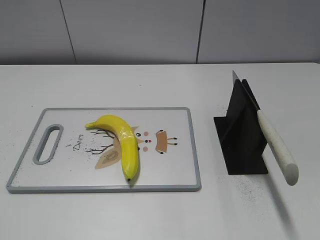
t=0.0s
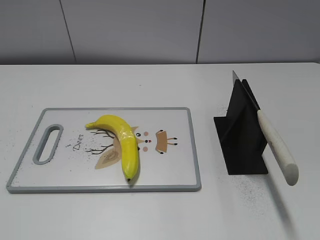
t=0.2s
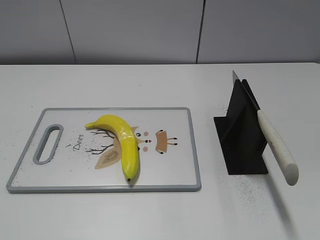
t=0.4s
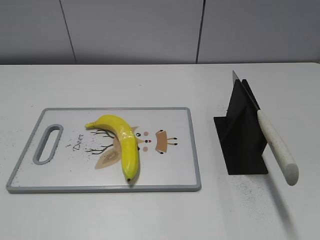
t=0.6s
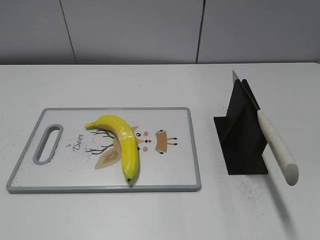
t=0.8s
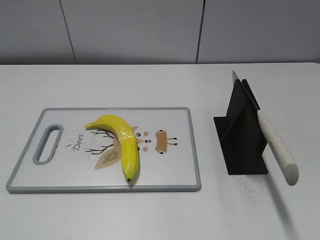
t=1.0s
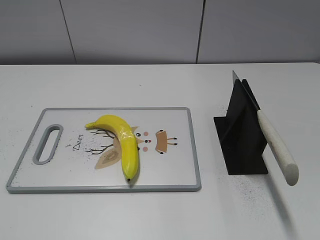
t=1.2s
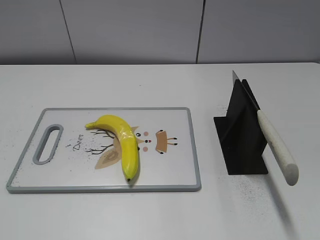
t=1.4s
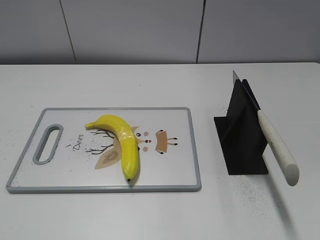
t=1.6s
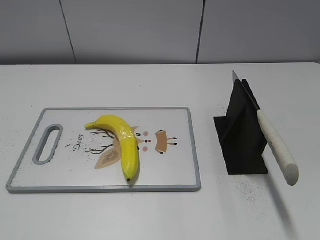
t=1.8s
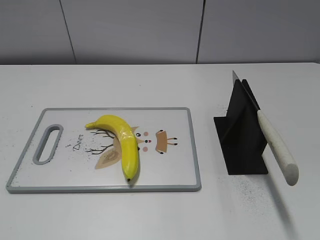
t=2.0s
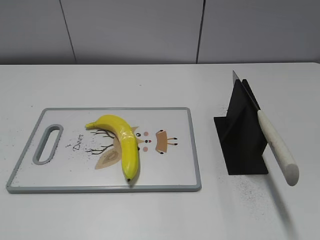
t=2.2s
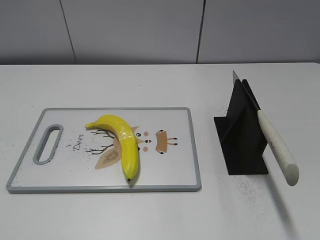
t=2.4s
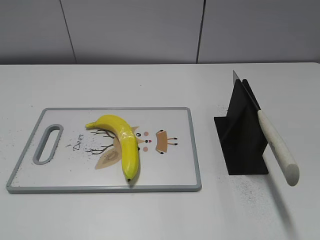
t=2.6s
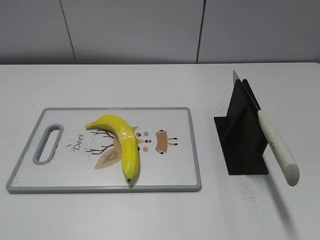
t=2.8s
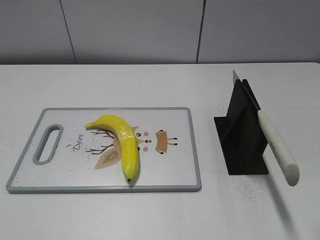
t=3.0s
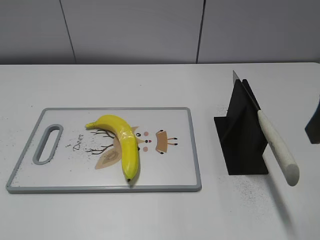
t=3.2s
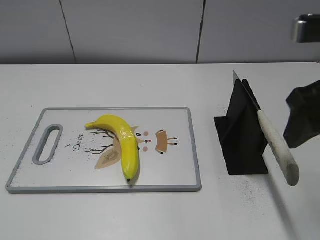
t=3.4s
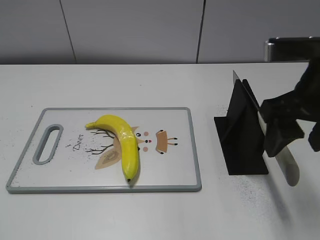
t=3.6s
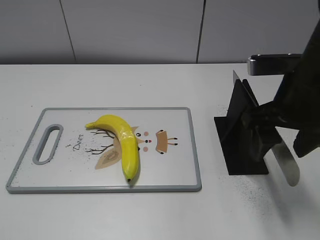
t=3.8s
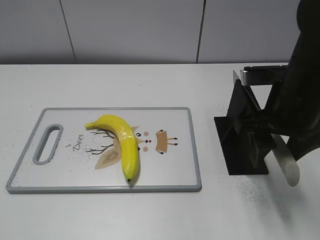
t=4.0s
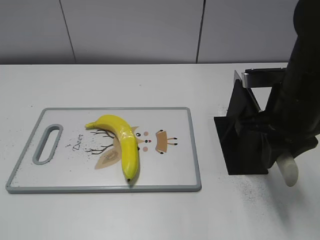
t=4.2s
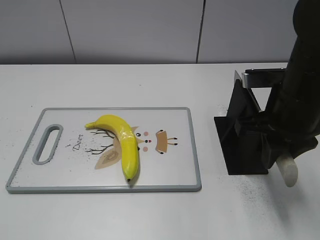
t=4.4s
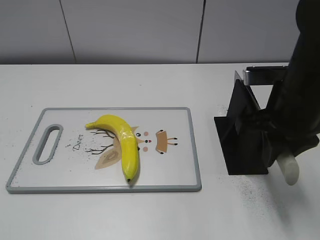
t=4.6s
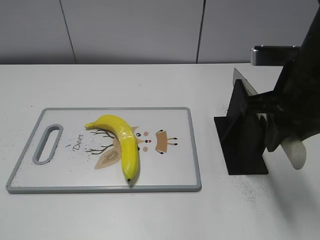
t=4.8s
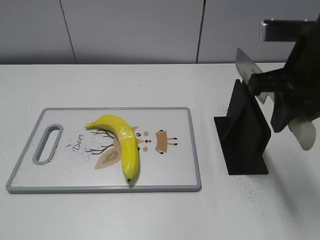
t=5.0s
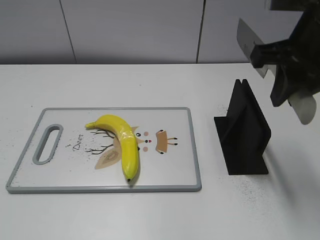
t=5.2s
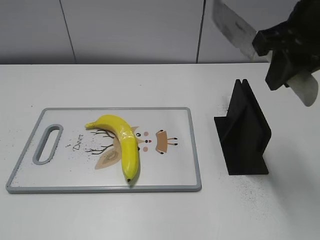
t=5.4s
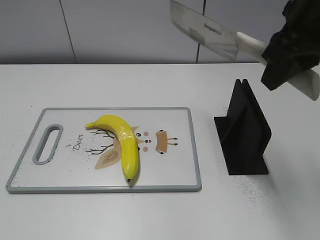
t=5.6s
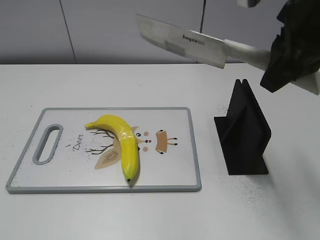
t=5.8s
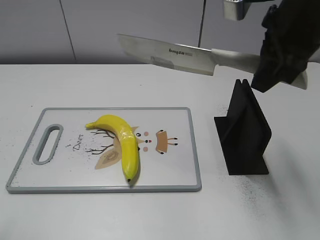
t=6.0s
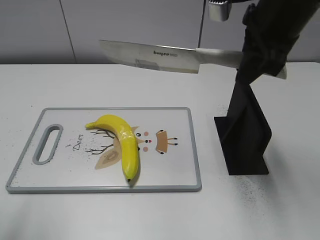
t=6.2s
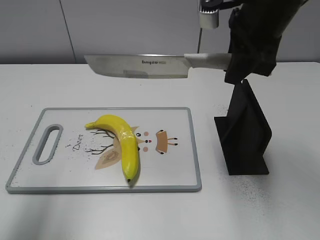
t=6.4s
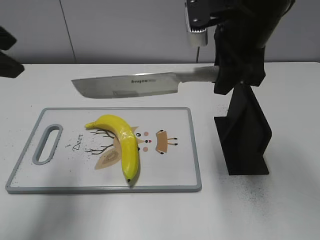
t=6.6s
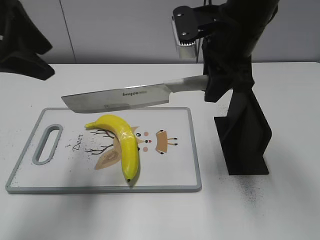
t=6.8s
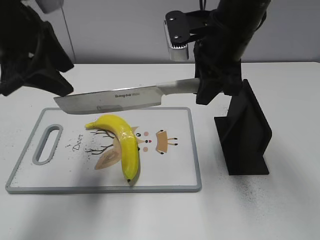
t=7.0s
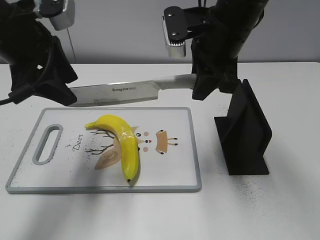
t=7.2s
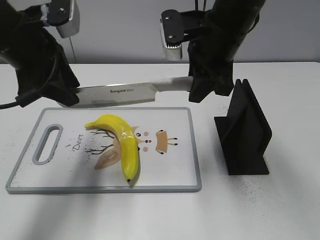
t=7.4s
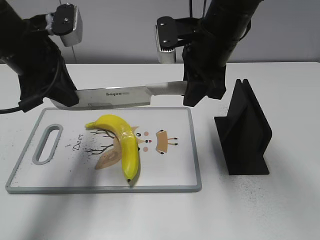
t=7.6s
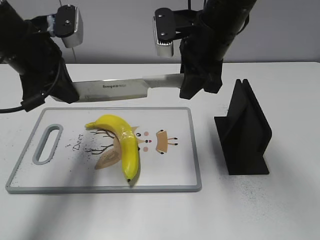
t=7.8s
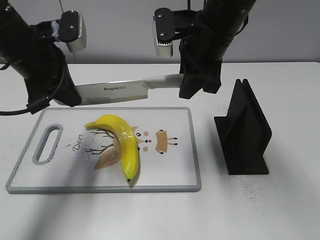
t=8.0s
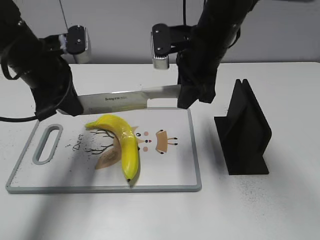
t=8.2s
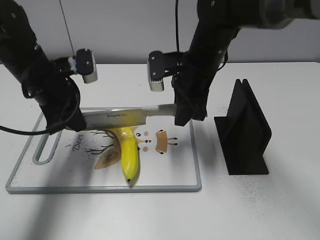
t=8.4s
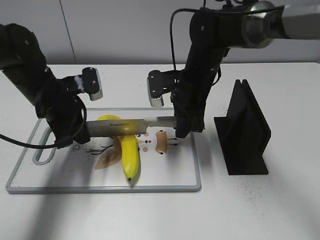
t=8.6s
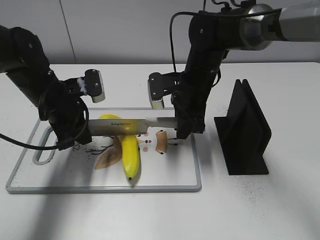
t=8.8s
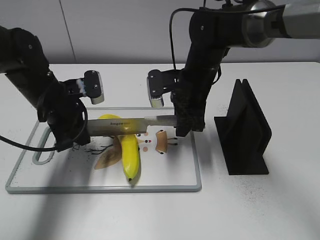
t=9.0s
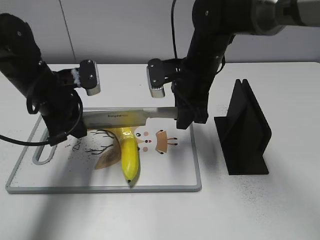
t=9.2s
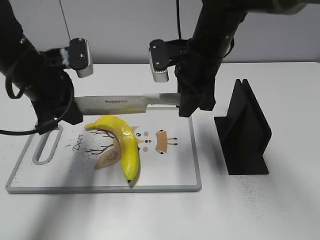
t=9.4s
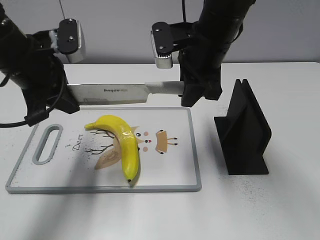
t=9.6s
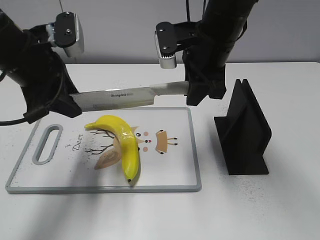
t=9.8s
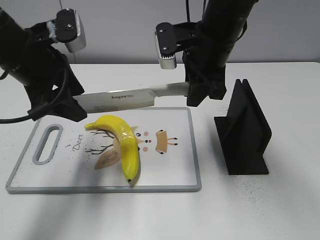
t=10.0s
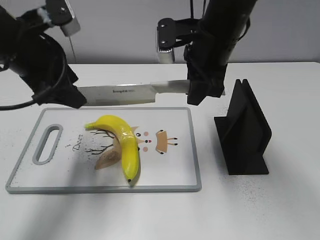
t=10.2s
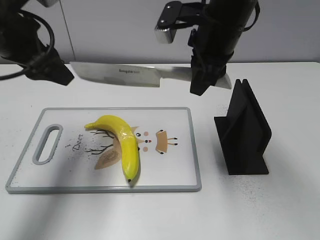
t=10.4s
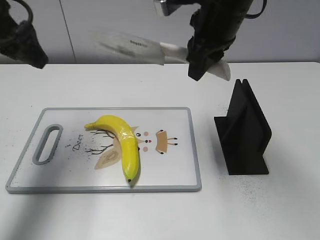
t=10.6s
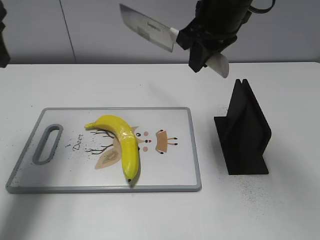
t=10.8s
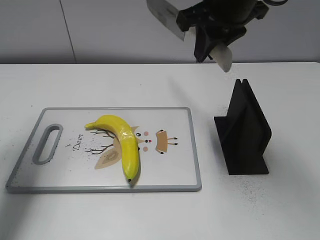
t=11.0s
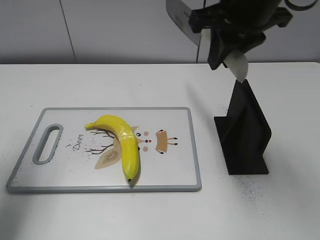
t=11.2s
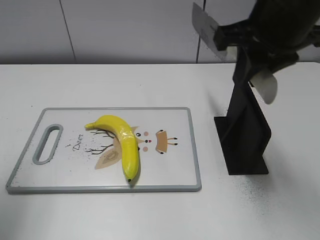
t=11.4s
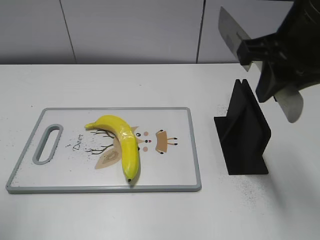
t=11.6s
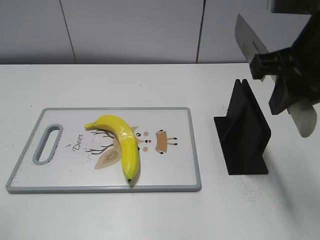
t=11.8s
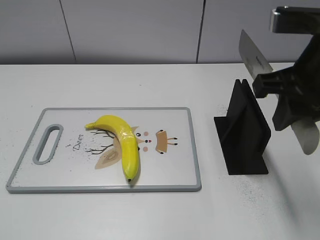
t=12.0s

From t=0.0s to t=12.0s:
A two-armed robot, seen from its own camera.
Task of the whole recording: cut plastic banana.
Step, from t=0.0s to t=5.2s: Grab the knife handle with your right hand.
Step, from t=5.4s to t=9.6s: Lift the knife with your right hand.
Step, from t=9.8s to t=11.0s: Cut the banana with your right hand.
From t=3.0s to t=4.4s: The right gripper heads downward, forward and to the left, covering approximately 15 cm, and closes up.
From t=4.4s to t=6.0s: The right gripper is displaced upward by about 10 cm. The left gripper travels forward by approximately 10 cm.
From t=6.0s to t=7.6s: The right gripper goes about 15 cm downward, to the left and forward; the left gripper moves forward and to the right, approximately 25 cm, and closes.
From t=7.6s to t=9.0s: The two grippers go about 10 cm downward.
From t=9.0s to t=10.4s: Both grippers travel together upward, some 15 cm. The left gripper opens.
From t=10.4s to t=12.0s: The right gripper shifts some 15 cm backward and to the right; the left gripper heads backward and to the left, covering approximately 25 cm.

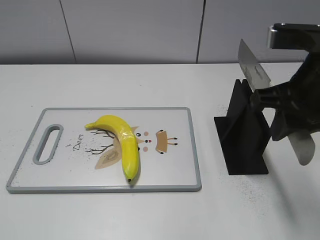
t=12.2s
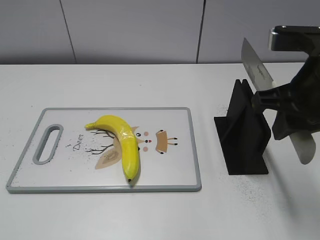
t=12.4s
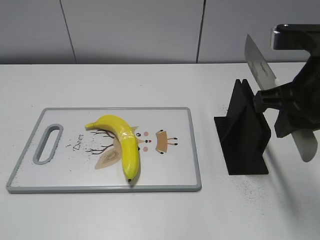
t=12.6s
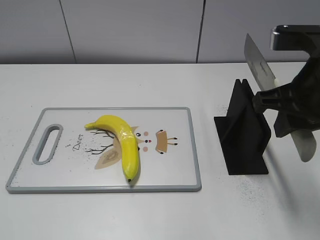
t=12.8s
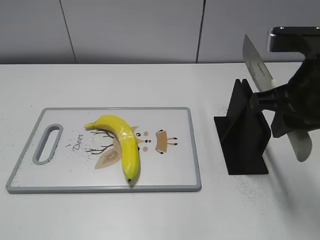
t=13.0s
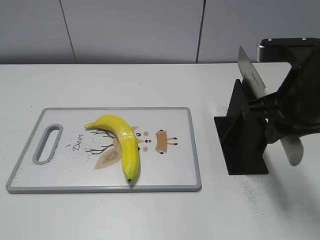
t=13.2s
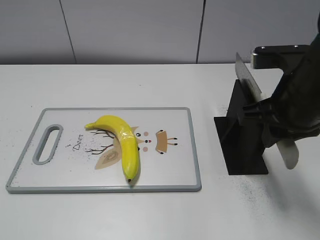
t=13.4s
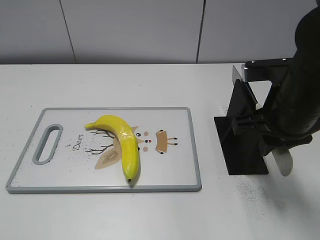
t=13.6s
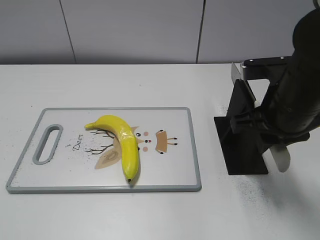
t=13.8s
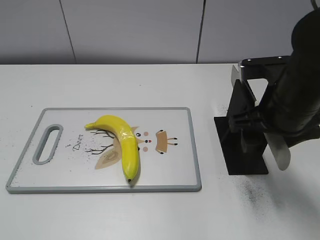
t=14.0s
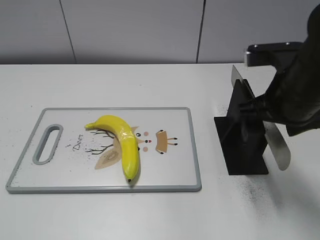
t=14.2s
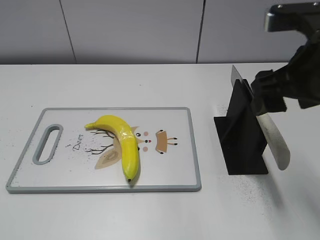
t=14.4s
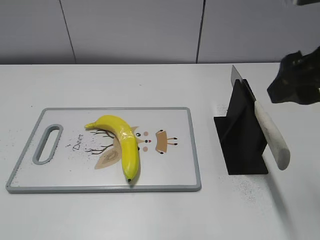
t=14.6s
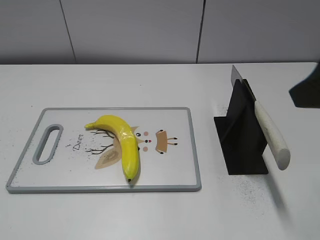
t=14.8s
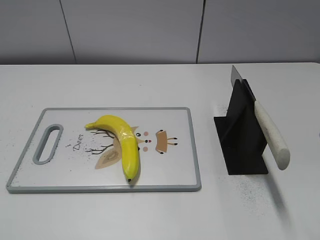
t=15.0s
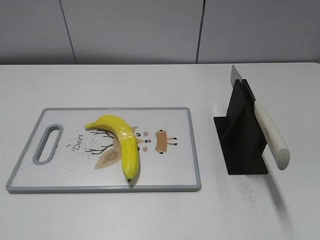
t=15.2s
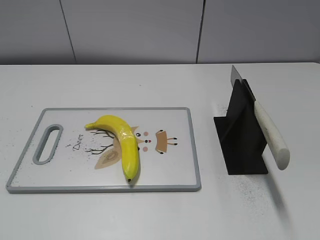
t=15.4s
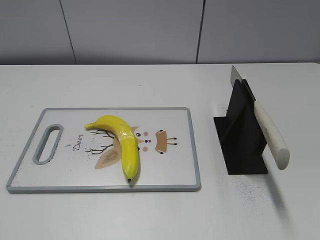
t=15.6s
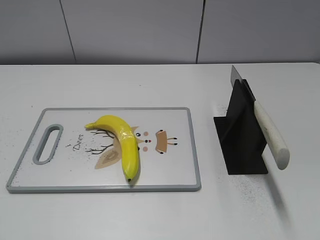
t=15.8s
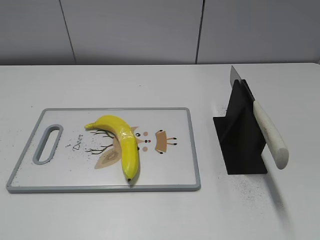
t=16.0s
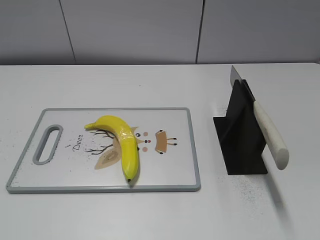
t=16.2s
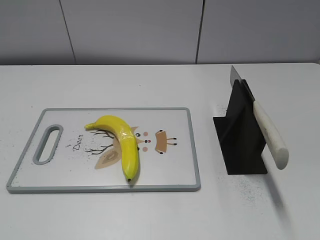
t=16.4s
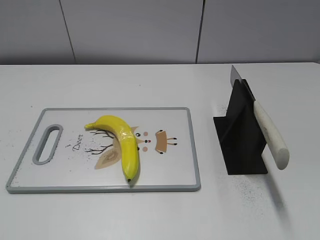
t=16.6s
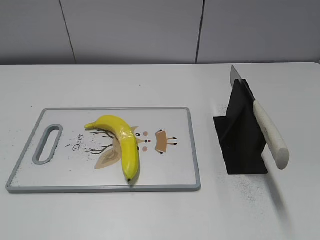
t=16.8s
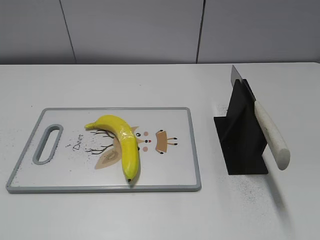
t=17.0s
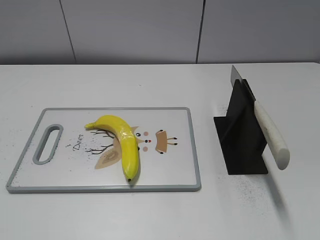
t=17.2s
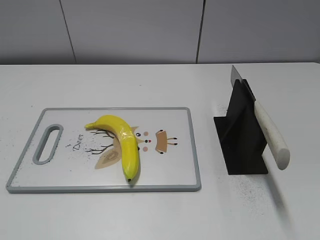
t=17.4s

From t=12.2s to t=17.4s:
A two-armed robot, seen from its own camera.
Task of the whole recording: cut plastic banana.
Step, from t=12.8s to t=17.2s: Place the knife on the storage rack with your right hand.
From t=12.2s to t=14.0s: The right gripper travels downward by roughly 5 cm, and opens up.
From t=14.0s to t=15.6s: The right gripper goes roughly 25 cm backward and to the right.
